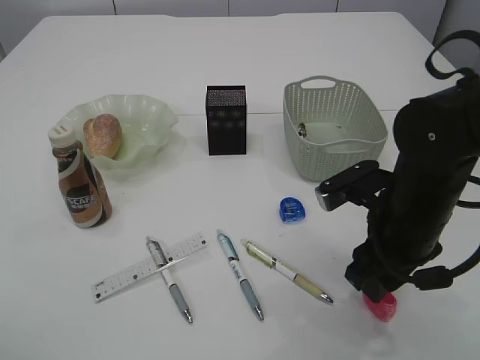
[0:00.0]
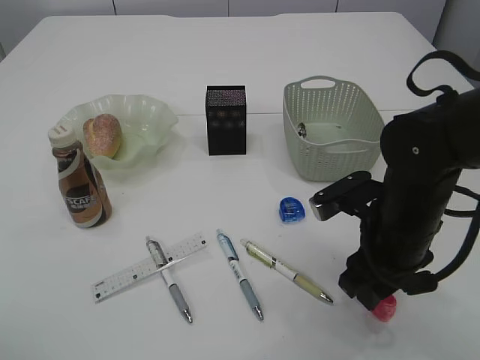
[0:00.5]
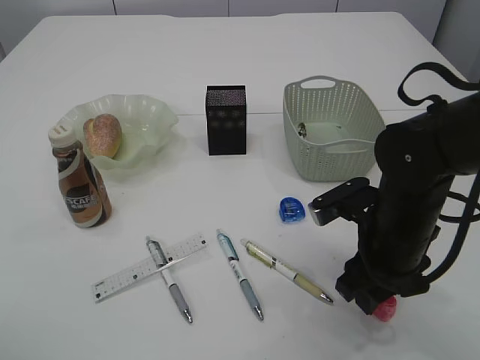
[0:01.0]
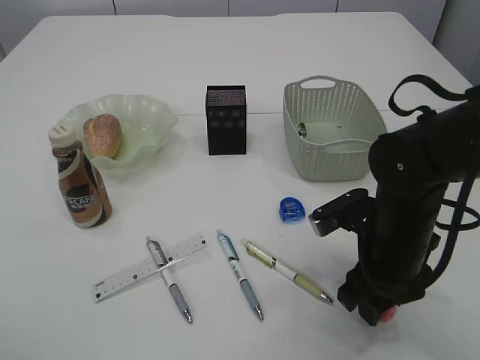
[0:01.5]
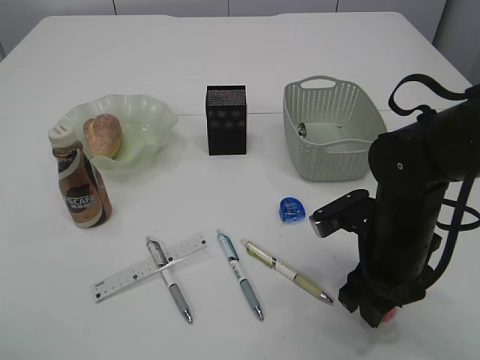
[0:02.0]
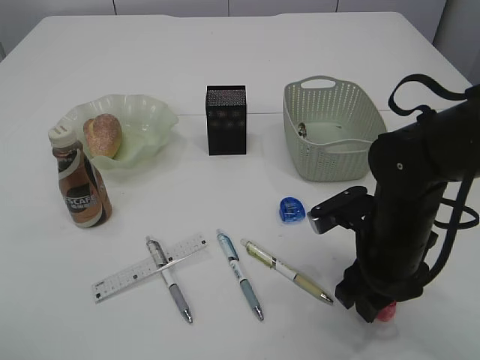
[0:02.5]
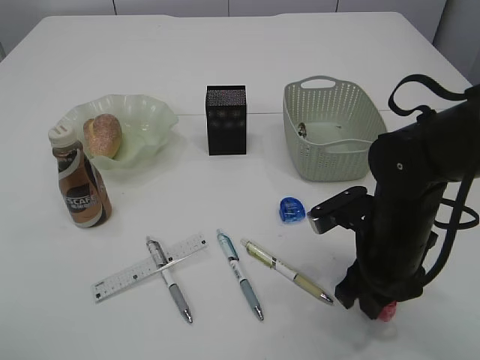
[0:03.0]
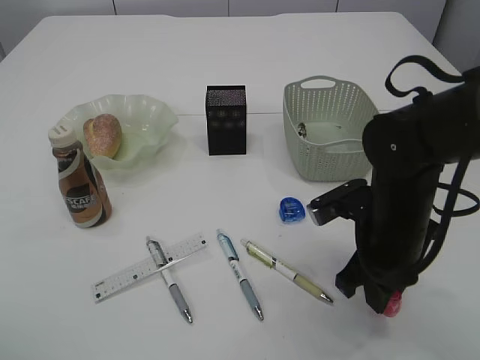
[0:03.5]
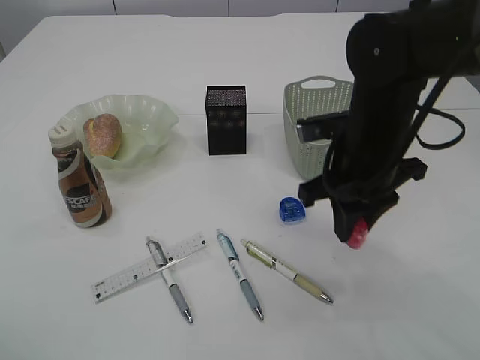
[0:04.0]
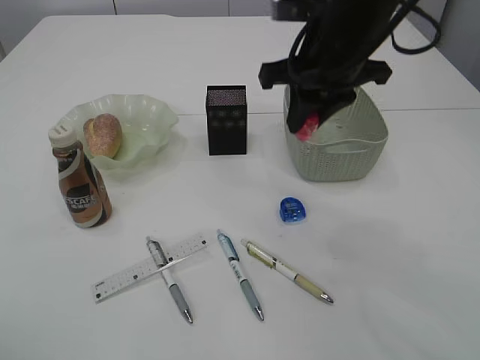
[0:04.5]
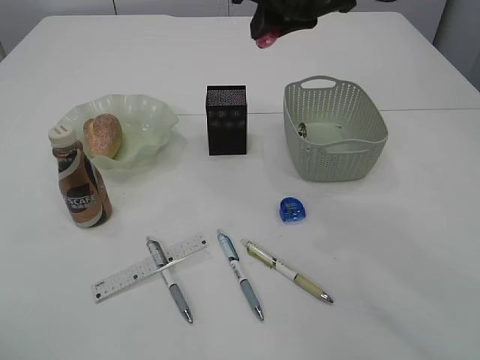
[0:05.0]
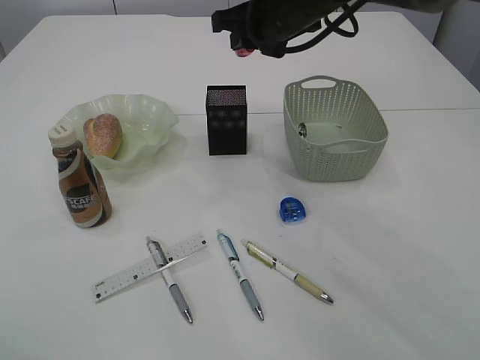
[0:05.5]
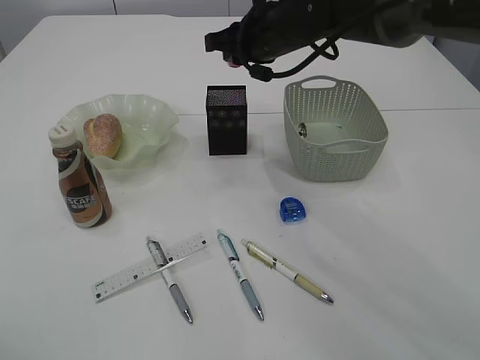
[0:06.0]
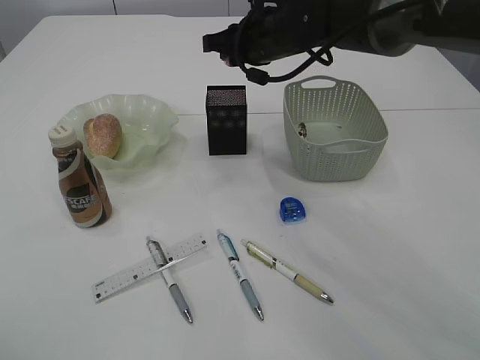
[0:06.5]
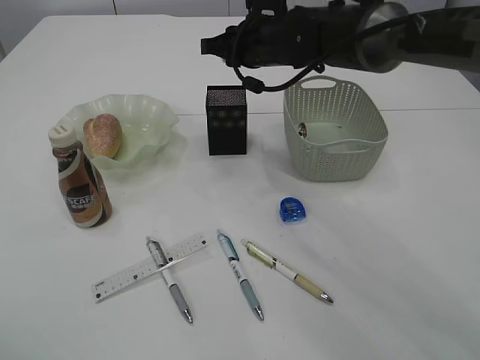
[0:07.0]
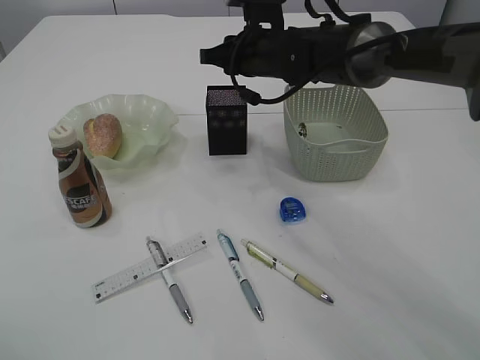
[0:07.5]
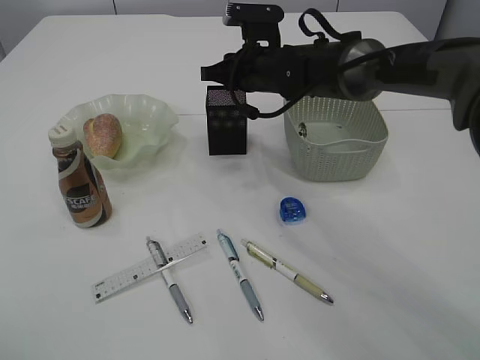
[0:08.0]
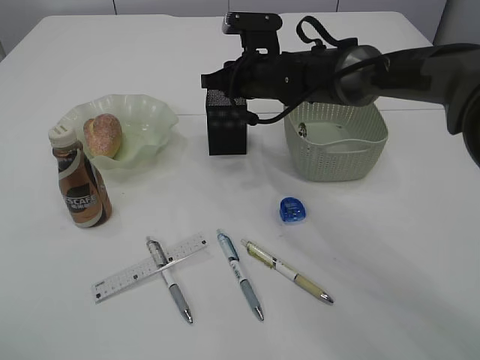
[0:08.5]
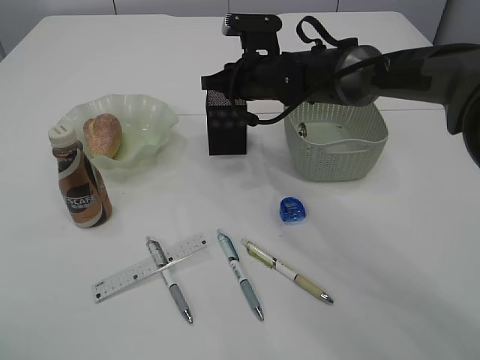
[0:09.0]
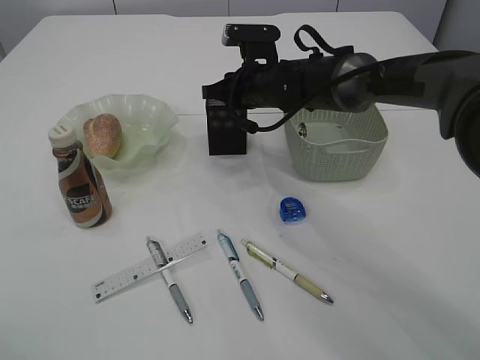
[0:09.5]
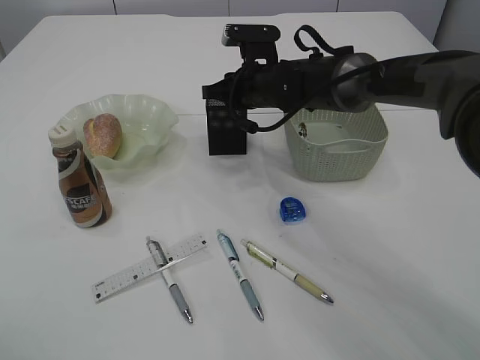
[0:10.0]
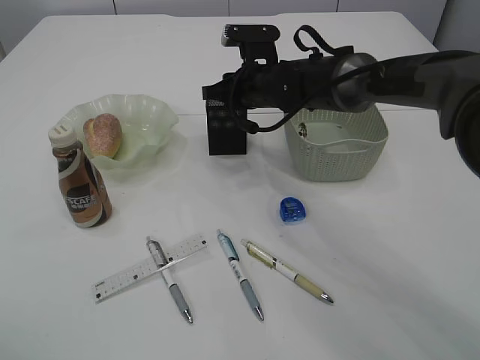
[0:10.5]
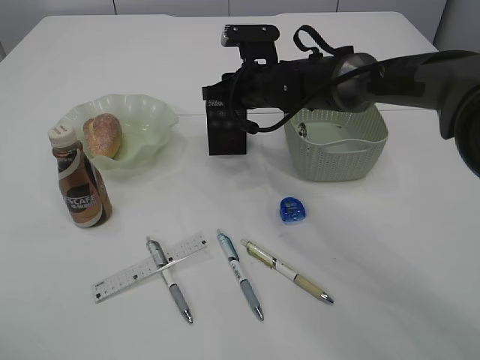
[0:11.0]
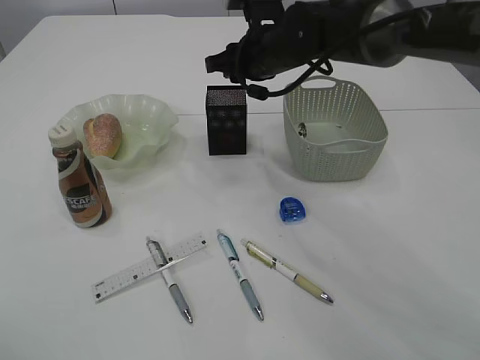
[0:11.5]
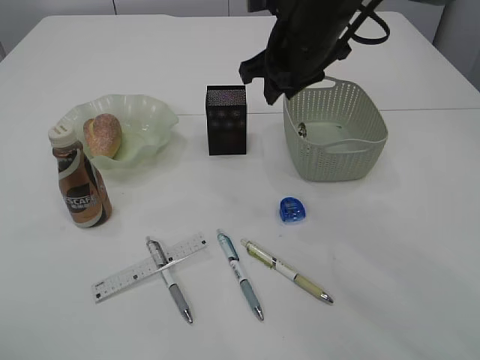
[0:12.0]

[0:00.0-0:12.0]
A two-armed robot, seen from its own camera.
Step, 0.0 to 4.0 s: Pick up the red pencil sharpener.
Step, 4.5 to 11.5 s: Place the red pencil sharpener into the pen holder.
0.0 to 2.0 s: The grippers make only small movements.
2.0 to 4.0 s: The right gripper moves upward, about 10 cm, and closes its fingers.
4.0 to 6.0 s: The right gripper moves forward, to the left and upward, roughly 20 cm.
6.0 to 8.0 s: The right gripper heads downward, covering roughly 5 cm.
8.0 to 10.0 s: The grippers make only small movements.
10.0 to 12.0 s: The right gripper moves upward and backward, about 15 cm.

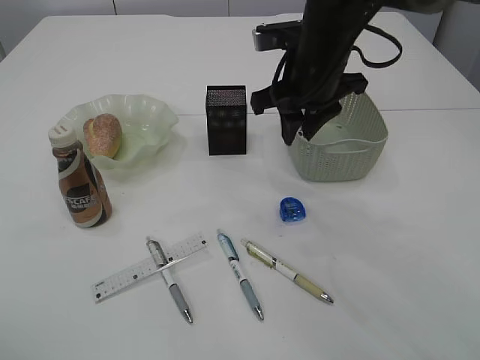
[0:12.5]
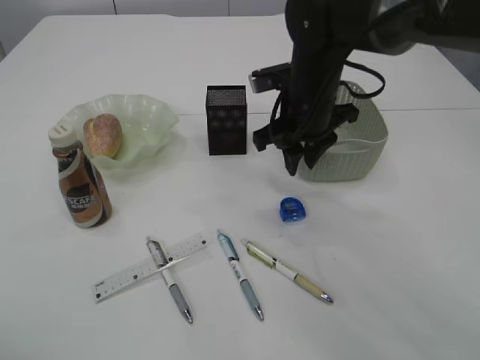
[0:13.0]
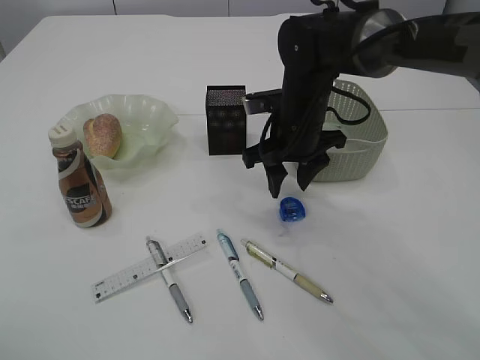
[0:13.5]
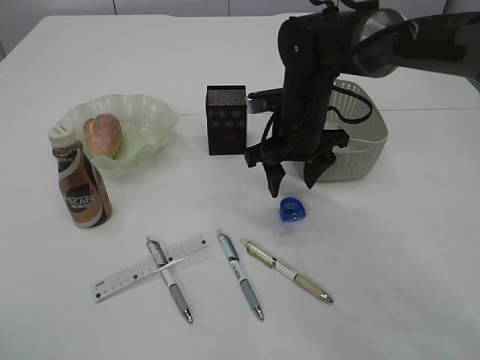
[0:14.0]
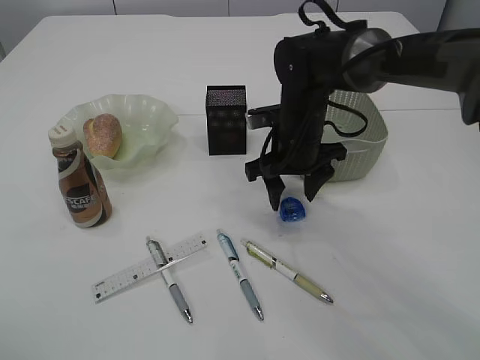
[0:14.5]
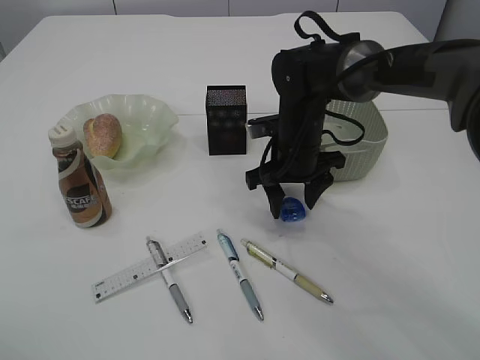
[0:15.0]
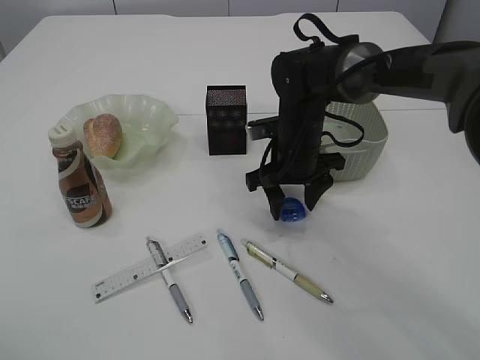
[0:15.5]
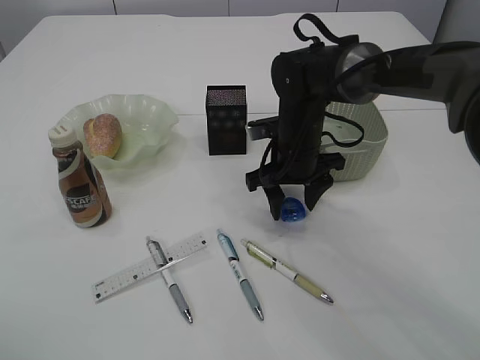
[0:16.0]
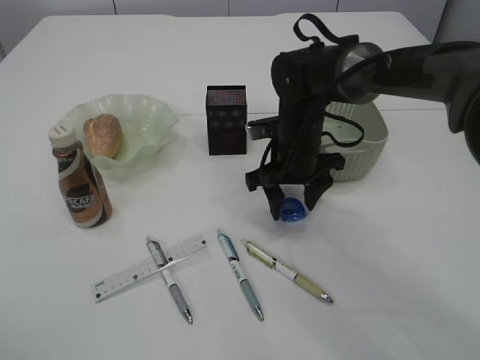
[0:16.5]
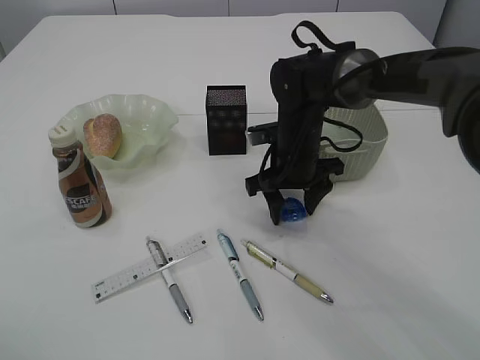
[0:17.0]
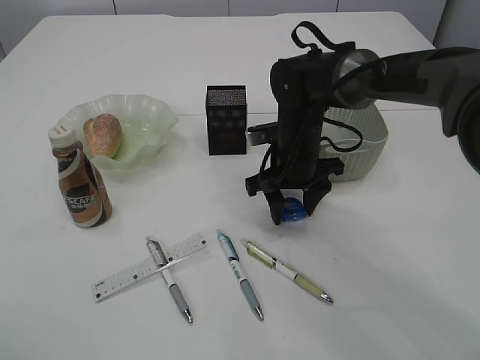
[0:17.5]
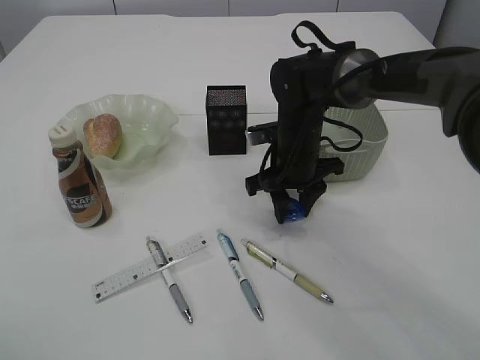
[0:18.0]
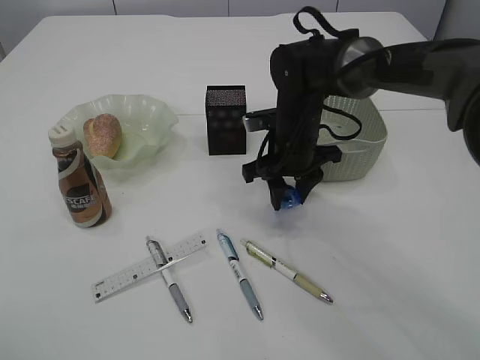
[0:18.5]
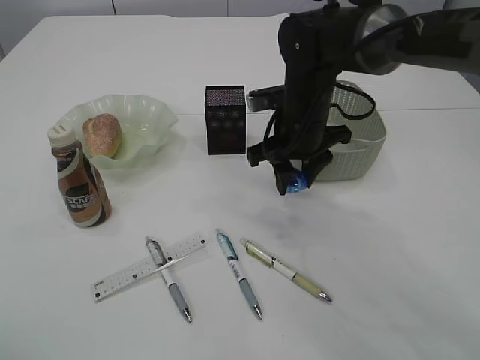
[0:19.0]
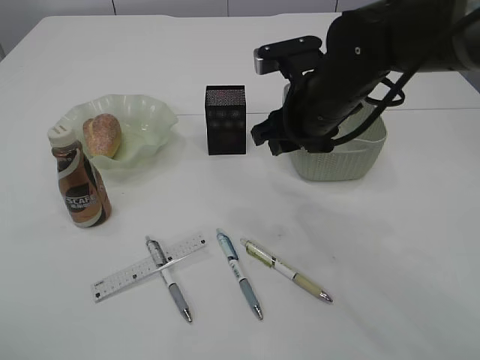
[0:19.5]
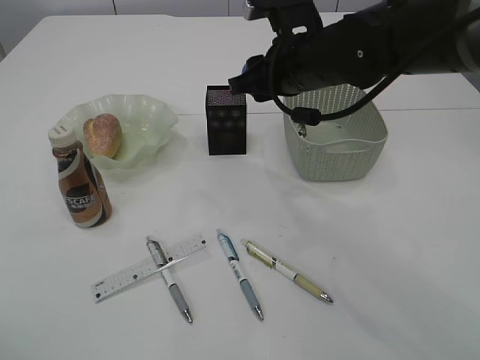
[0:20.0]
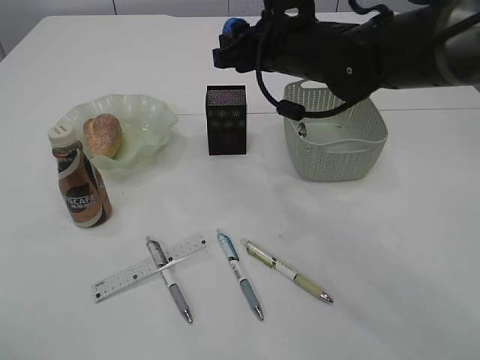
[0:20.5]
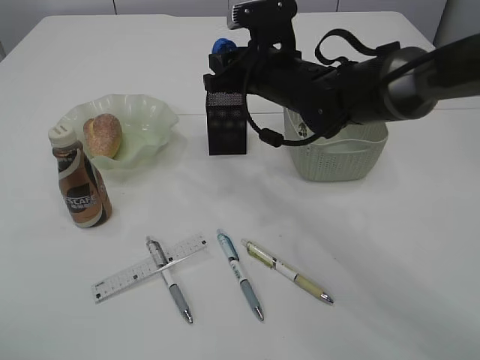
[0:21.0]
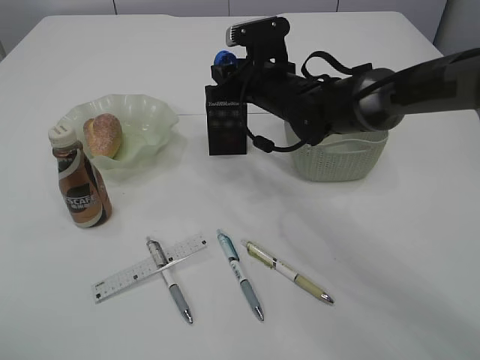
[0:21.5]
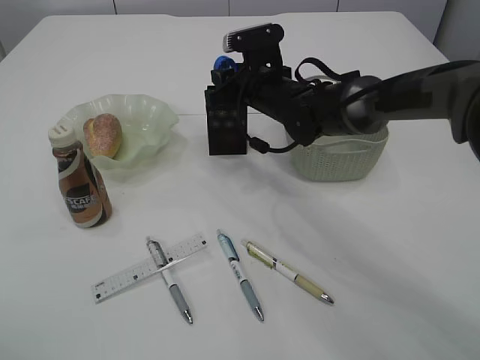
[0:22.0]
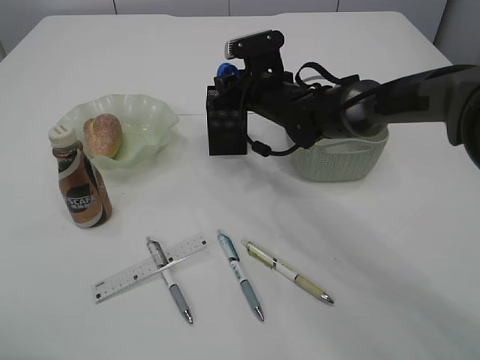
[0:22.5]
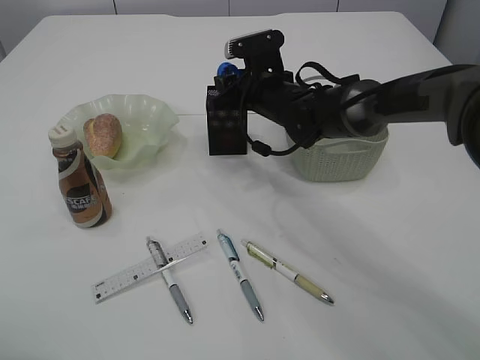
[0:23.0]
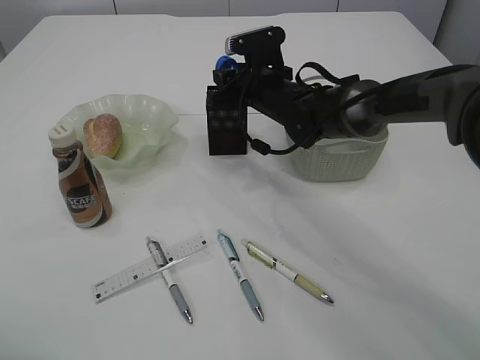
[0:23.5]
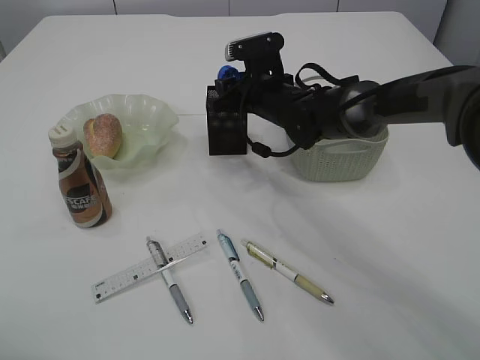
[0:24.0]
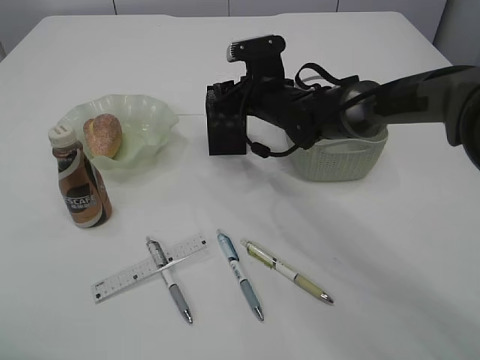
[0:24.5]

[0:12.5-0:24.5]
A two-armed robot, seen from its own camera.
Step, 12.5 to 18.5 s: Pick up the blue pencil sharpener.
12.5 to 14.5 s: The right gripper moves downward, some 10 cm, and opens.
14.5 to 16.5 s: The grippers stay close to where they were, moving slightly.
16.5 to 18.5 s: Neither gripper changes place.
18.5 to 20.5 s: The right gripper goes about 10 cm upward.
20.5 to 22.5 s: The right gripper moves downward and forward, some 15 cm.
22.5 to 24.5 s: Neither gripper changes place.

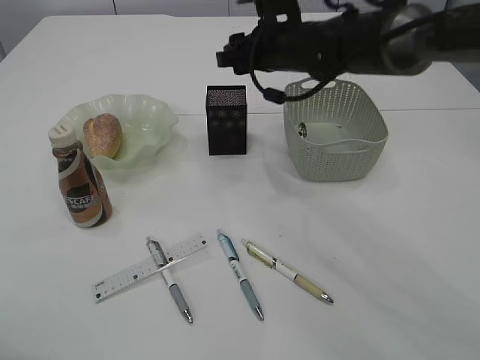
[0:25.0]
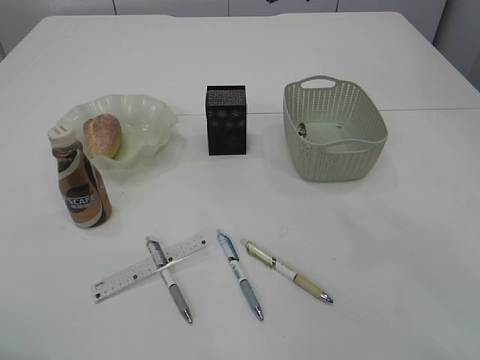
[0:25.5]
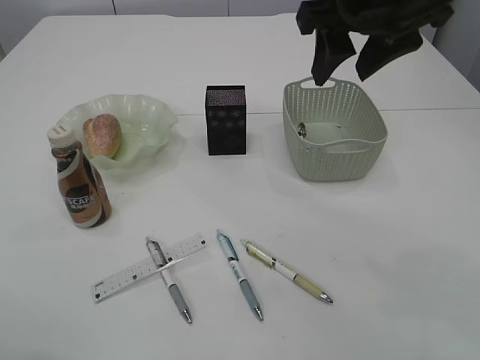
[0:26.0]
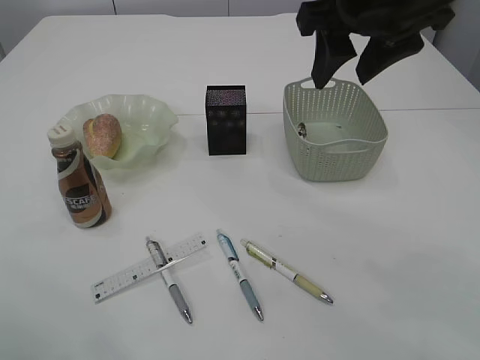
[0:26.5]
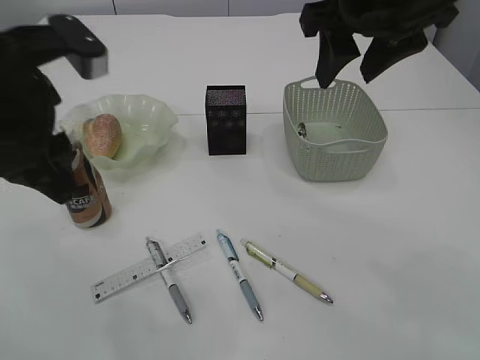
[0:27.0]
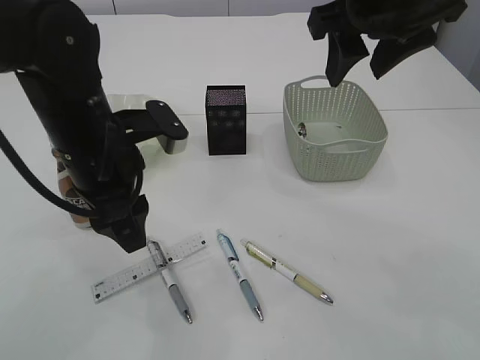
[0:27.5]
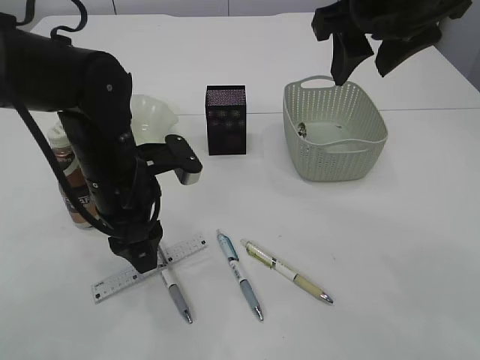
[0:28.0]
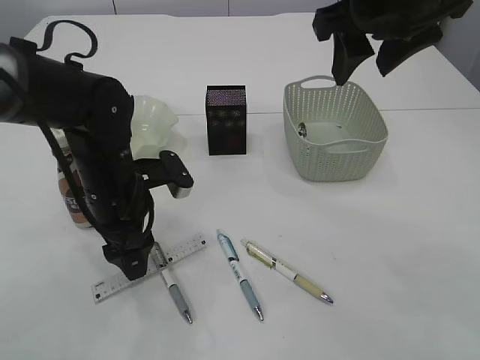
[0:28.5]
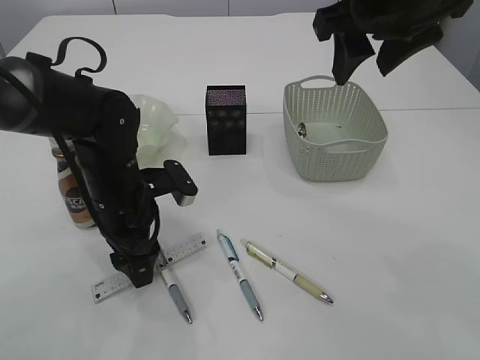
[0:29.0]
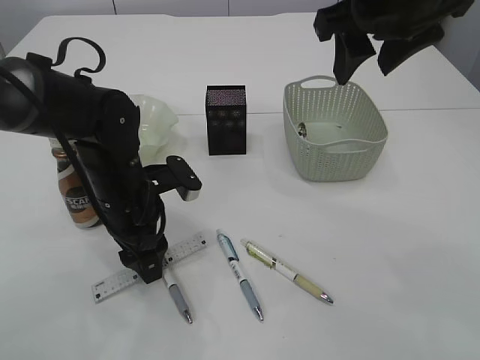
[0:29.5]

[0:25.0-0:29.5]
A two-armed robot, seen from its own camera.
25.0 to 27.0 s: The right gripper travels backward, upward and to the right by about 20 cm. Meanwhile the left gripper travels to the right and forward by some 15 cm.
27.0 to 29.5 s: The left gripper heads downward, covering roughly 20 cm.
